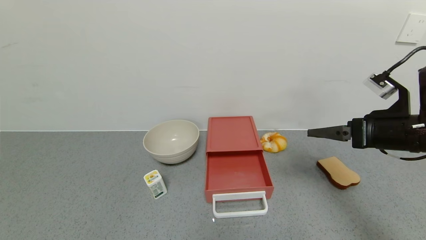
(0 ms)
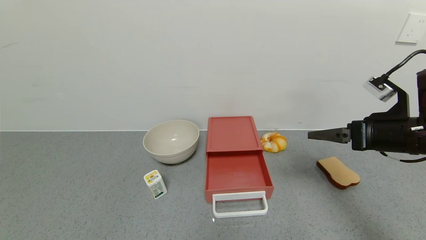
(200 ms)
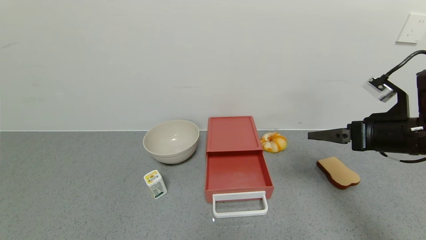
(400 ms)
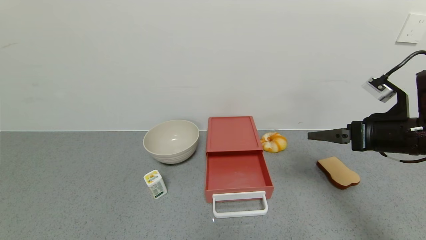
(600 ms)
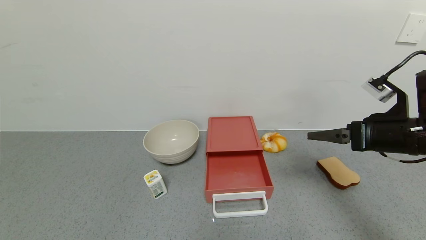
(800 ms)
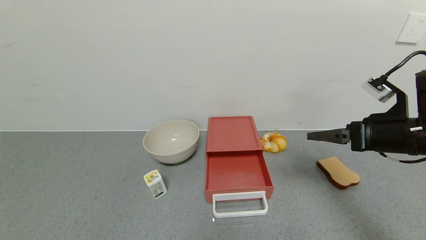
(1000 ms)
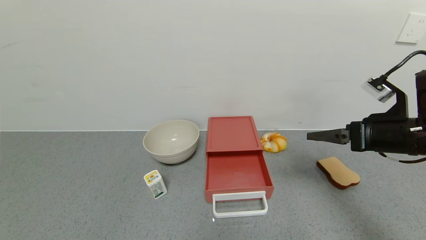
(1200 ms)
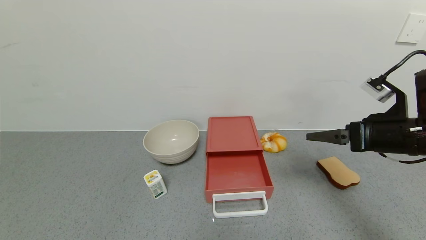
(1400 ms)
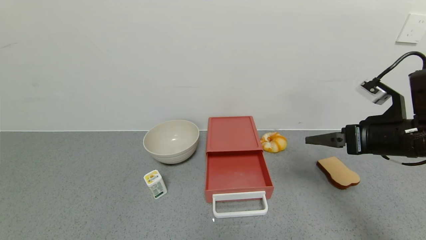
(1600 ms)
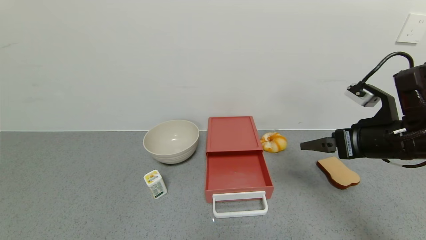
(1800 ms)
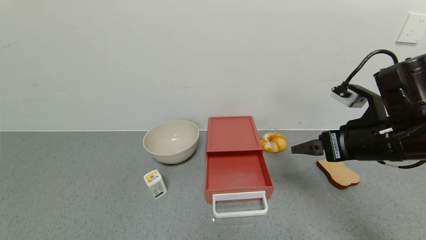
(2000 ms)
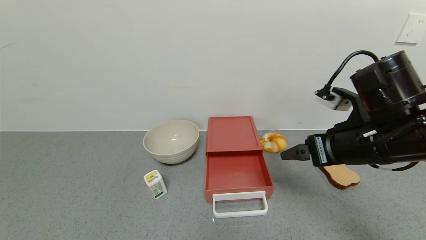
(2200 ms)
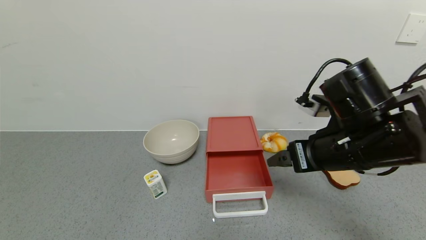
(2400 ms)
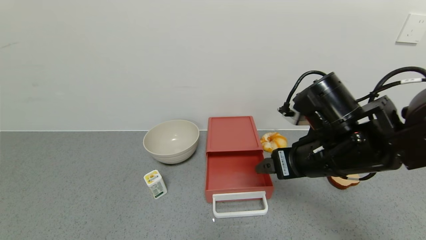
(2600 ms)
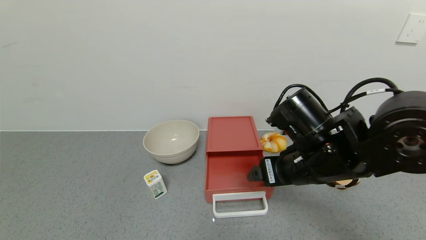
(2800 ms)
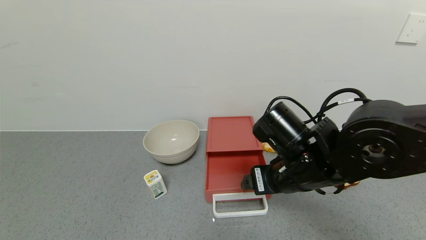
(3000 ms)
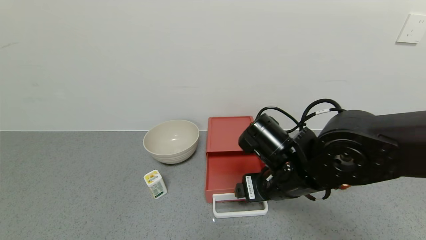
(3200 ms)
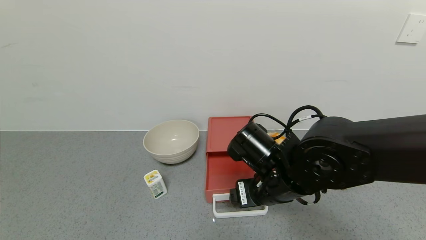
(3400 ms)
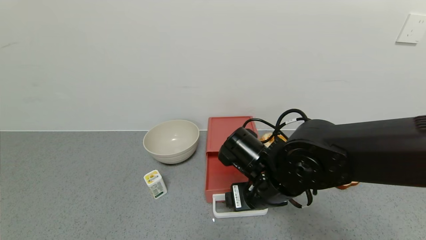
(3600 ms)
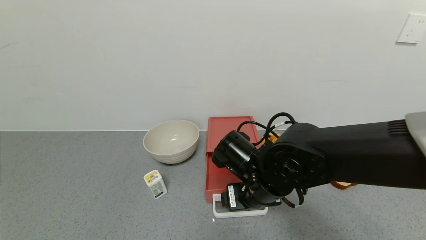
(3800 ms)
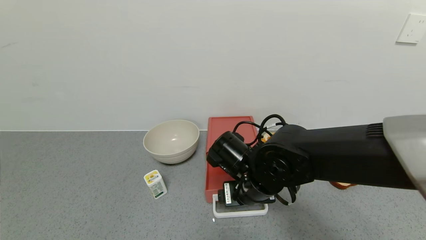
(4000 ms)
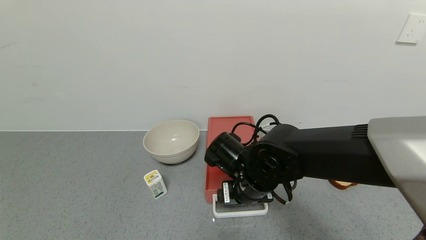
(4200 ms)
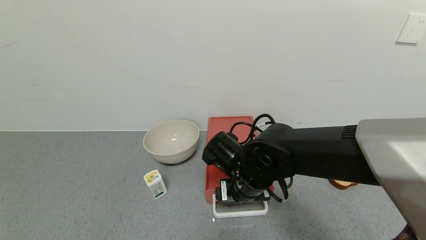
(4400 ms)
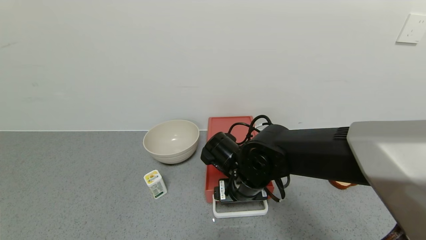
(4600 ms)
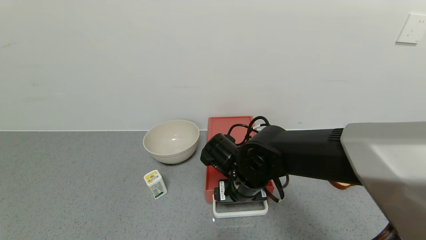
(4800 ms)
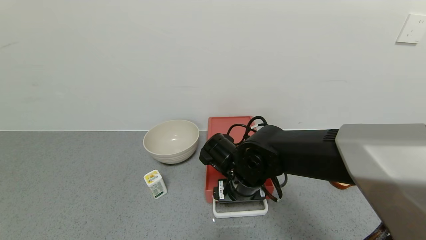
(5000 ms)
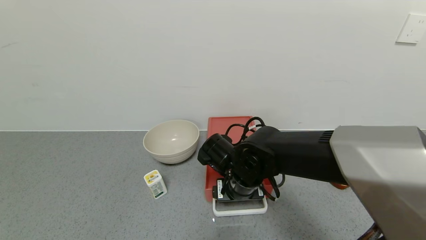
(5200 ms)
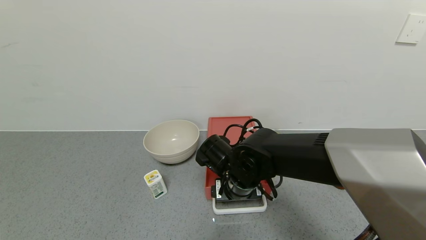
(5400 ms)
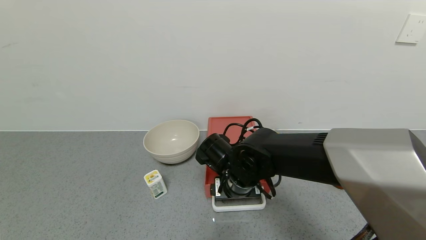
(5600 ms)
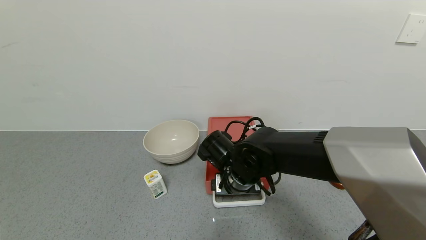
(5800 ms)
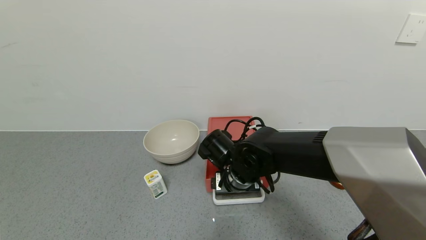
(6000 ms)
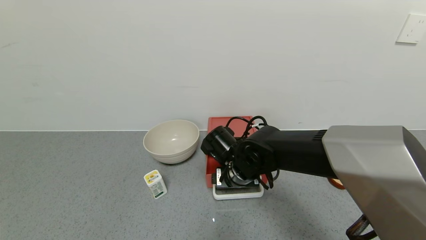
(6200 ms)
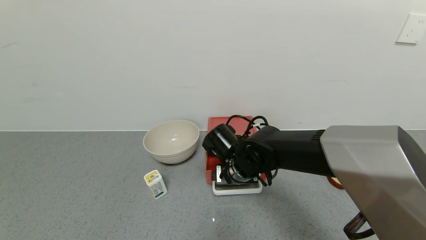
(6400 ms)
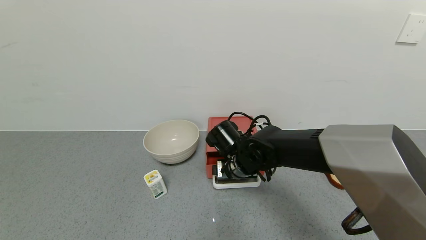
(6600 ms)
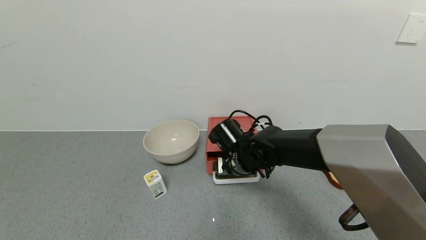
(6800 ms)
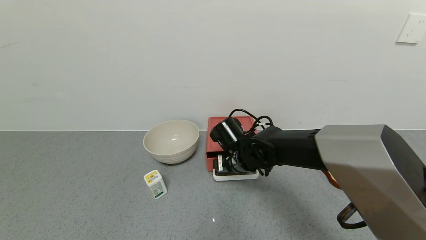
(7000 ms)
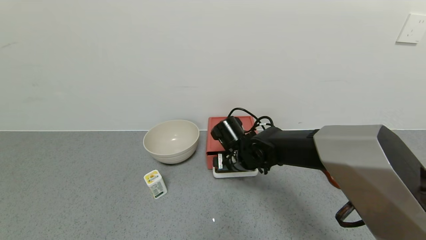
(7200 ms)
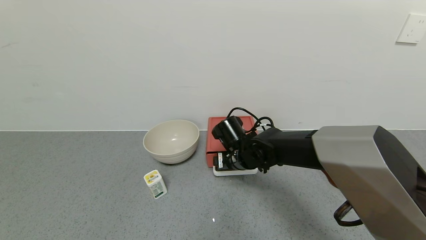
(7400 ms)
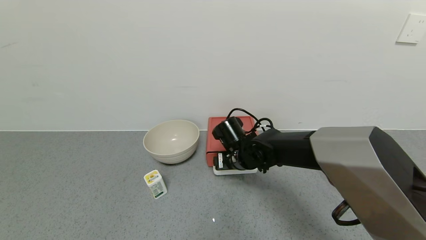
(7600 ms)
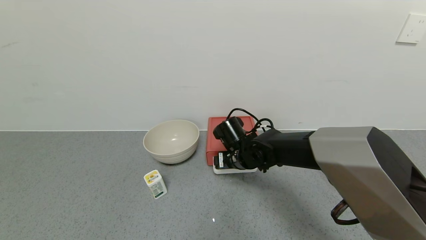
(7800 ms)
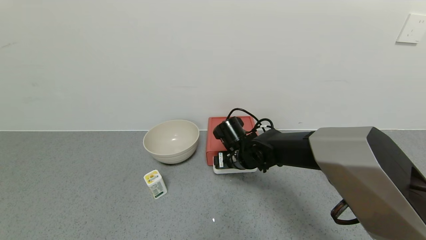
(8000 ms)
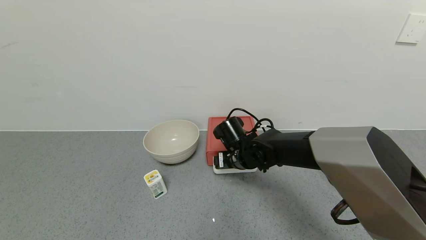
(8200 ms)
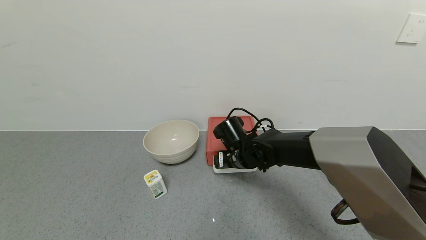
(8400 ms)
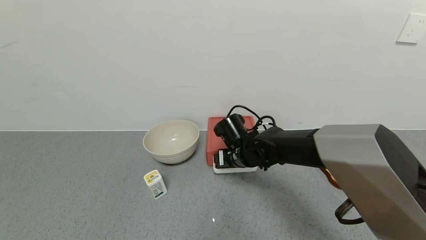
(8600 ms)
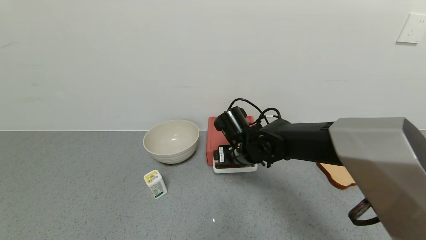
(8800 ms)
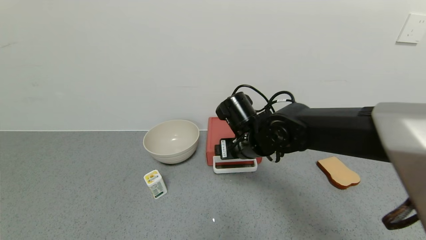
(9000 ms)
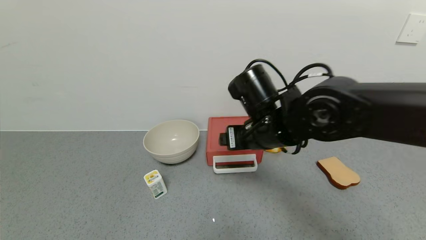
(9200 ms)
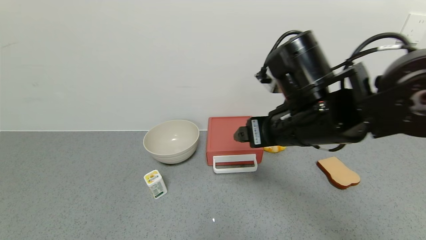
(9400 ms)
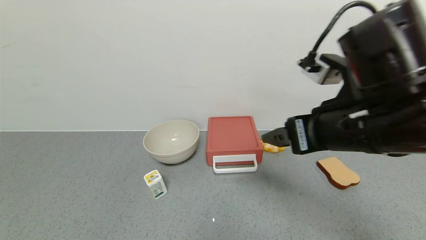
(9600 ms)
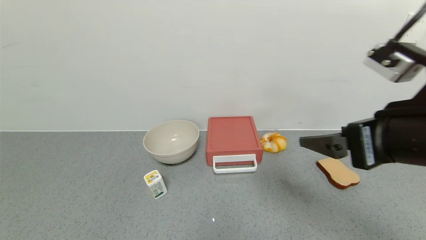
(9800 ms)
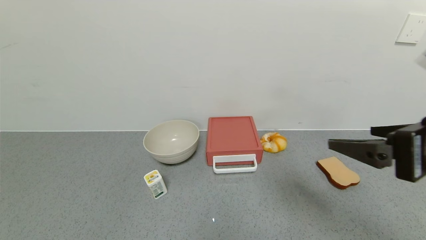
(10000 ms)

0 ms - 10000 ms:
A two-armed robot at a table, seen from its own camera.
Task of the whole recording: use the gripper to open the drawer and close the red drawer.
Step, 0 ms - 9000 ms: Close the red drawer with the right gripper.
0 ms - 1400 ms: The two grippers keep their place.
1400 ms - 2800 ms: The right gripper heads to the left, covering some 15 cm.
2800 ms - 4200 ms: The right gripper moves to the left and downward, about 10 cm.
4200 ms - 5800 ms: There are only small adjustments of the grippers.
5800 ms - 7200 ms: The right gripper goes approximately 5 cm forward.
7200 ms - 8600 ms: The grippers stay close to where they were, moving slightly.
8600 ms - 10000 ms: The right gripper heads backward, to the right and upward, covering about 35 cm.

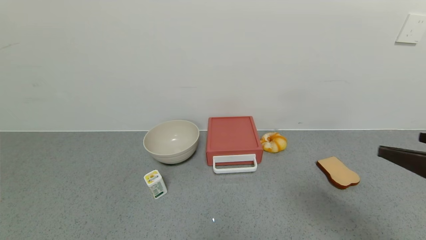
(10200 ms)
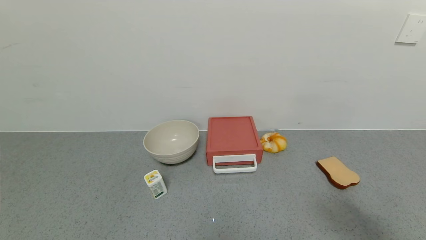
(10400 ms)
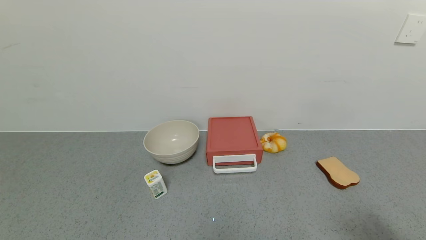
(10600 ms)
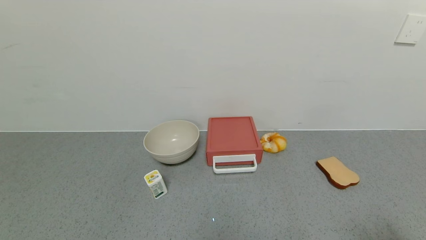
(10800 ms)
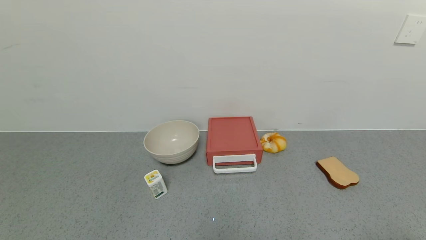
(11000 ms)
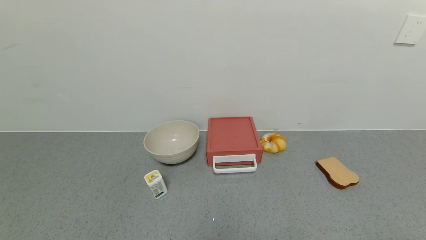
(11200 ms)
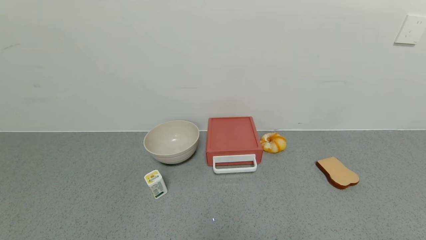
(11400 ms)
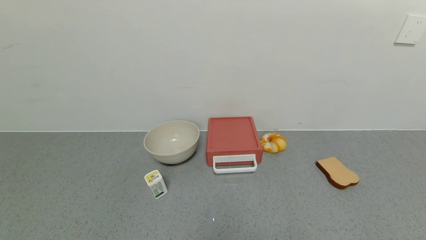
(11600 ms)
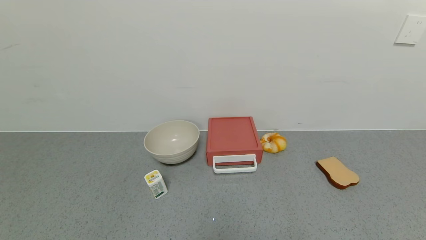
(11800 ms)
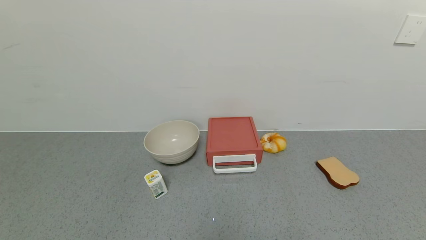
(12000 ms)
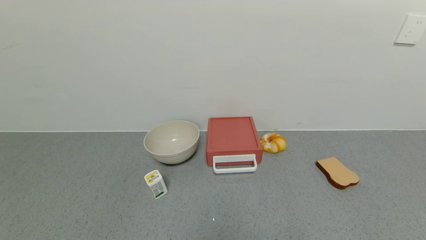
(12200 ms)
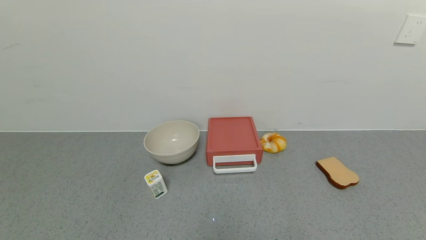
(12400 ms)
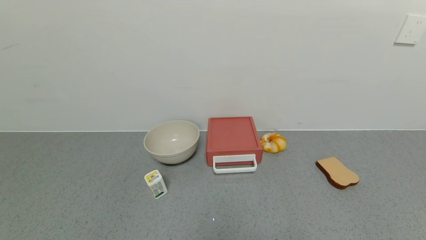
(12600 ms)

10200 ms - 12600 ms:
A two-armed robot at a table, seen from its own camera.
Task of the whole recording: use the gripper to open the drawer and close the red drawer.
10200 ms - 11400 ms: The right gripper heads backward, downward and to the right, covering some 20 cm.
